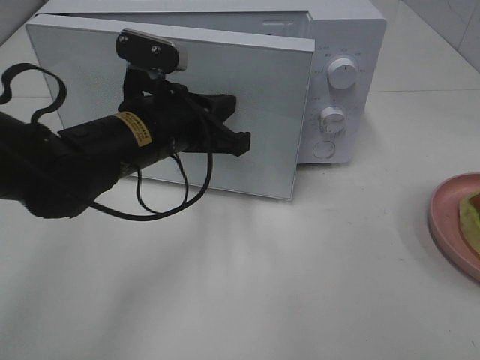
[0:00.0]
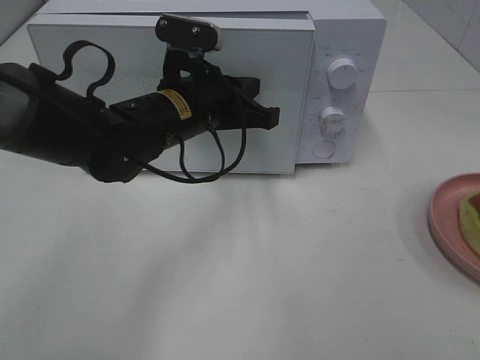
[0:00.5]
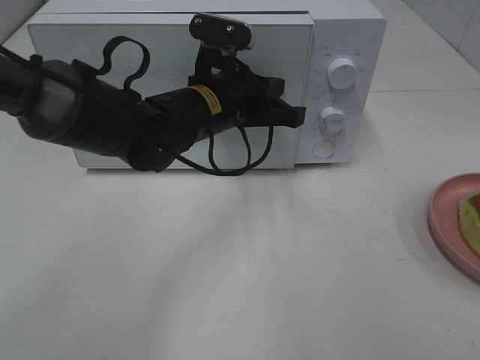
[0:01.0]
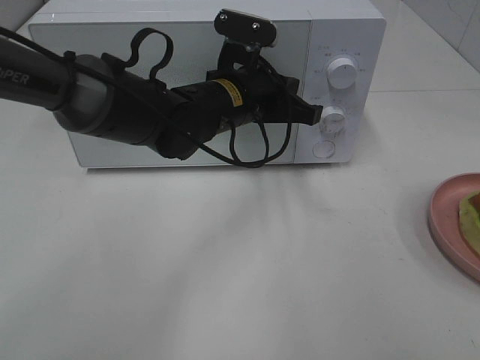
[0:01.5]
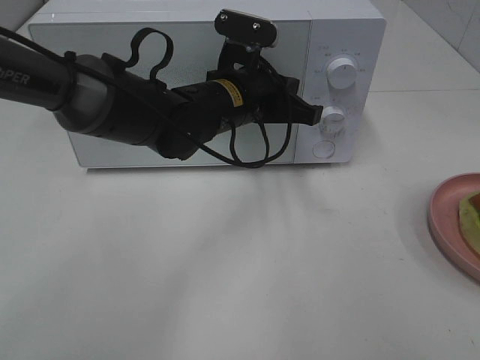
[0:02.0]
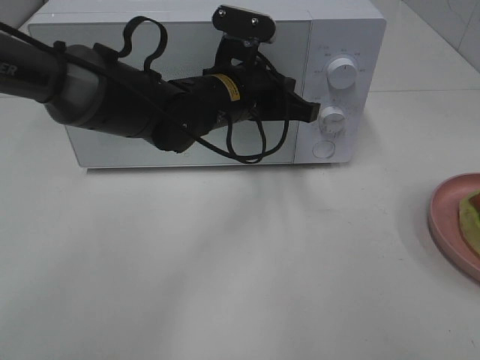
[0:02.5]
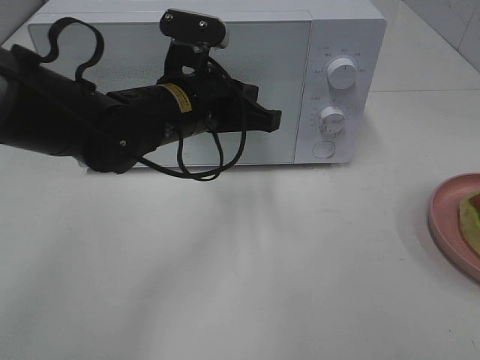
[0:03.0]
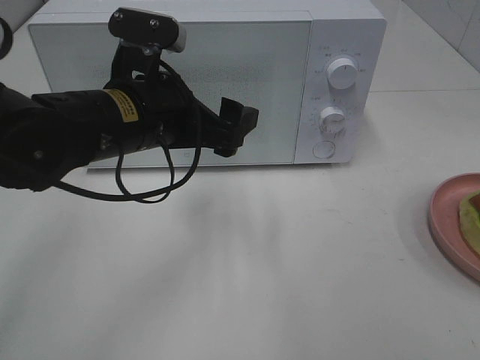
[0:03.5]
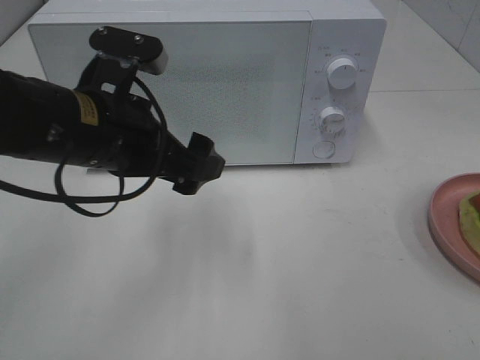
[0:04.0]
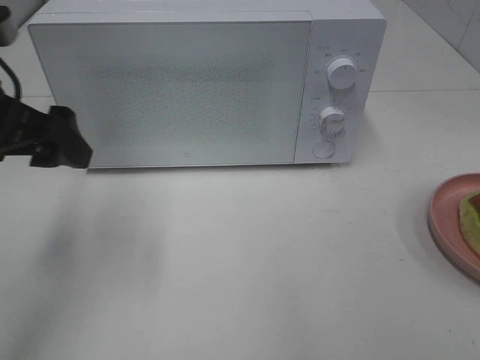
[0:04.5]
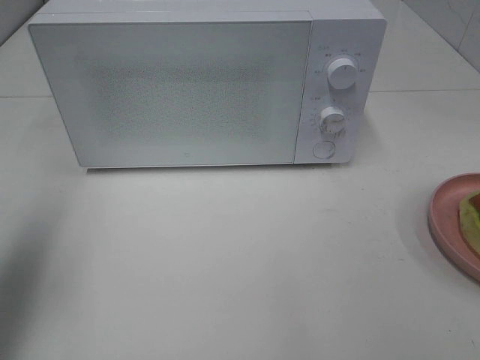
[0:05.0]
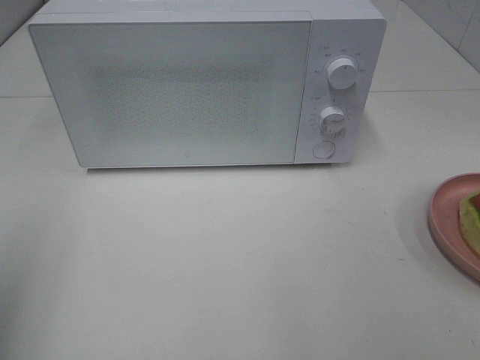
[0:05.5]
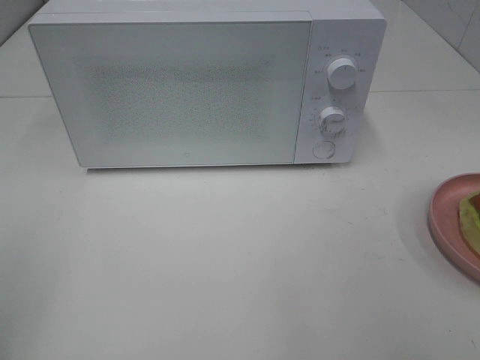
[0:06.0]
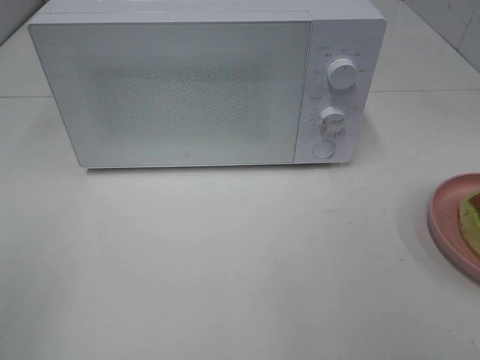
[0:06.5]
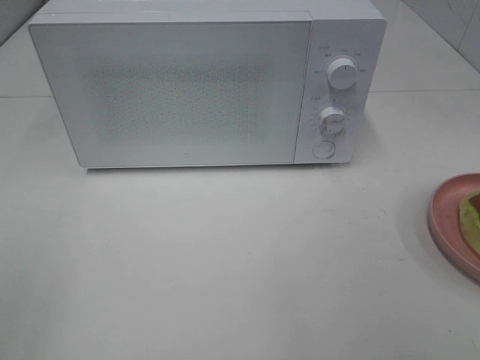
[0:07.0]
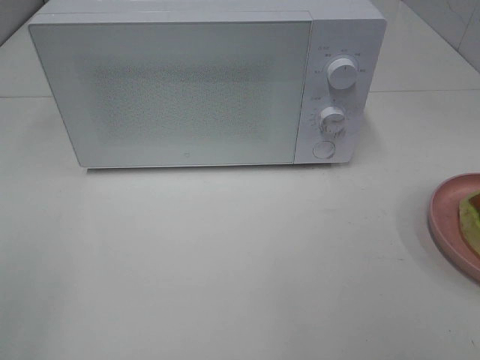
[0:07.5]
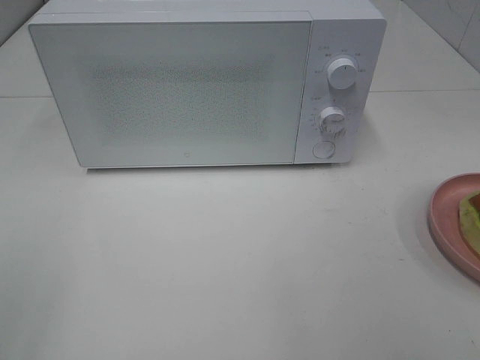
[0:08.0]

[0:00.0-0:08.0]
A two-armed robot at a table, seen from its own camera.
Task of the whole recording: Heat Sandwich.
Step, 0:00.0 to 0:02.5: Left hand: close the microwave door.
0:00.0 to 0:02.0: The left gripper heads to the right and forward, covering approximately 10 cm.
0:02.0 to 0:04.0: The left gripper goes roughly 20 cm to the left, backward and upward, and opens up.
0:04.0 to 0:06.0: The left gripper heads backward and to the left, covering some 30 cm.
